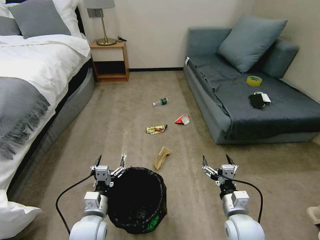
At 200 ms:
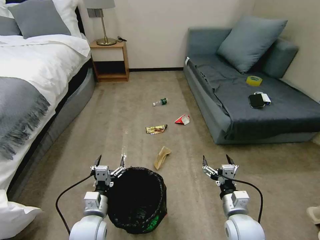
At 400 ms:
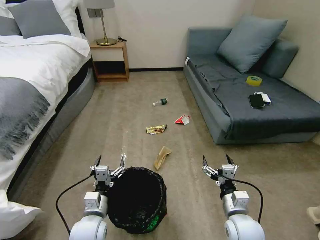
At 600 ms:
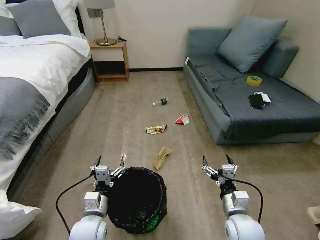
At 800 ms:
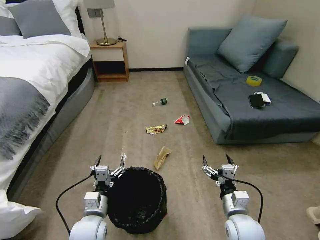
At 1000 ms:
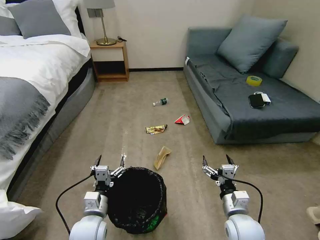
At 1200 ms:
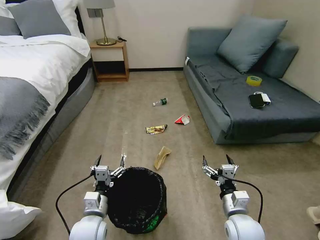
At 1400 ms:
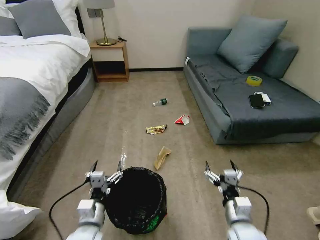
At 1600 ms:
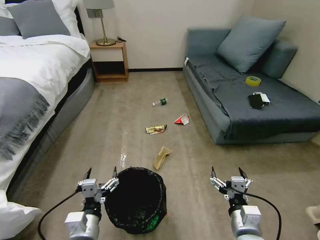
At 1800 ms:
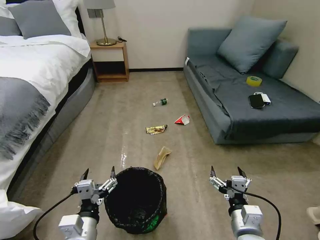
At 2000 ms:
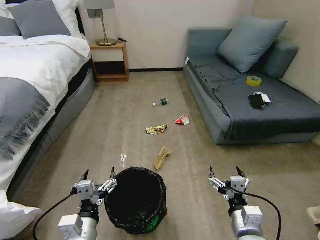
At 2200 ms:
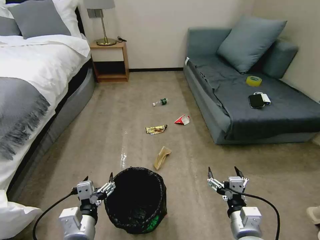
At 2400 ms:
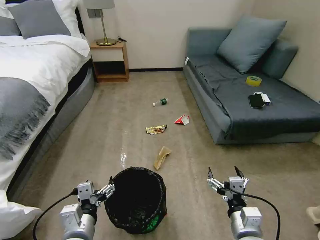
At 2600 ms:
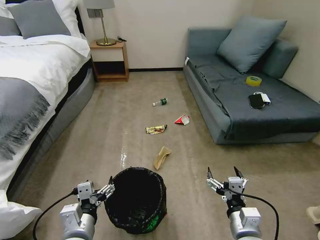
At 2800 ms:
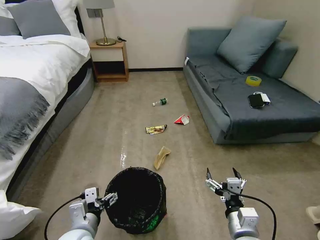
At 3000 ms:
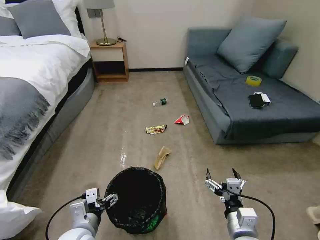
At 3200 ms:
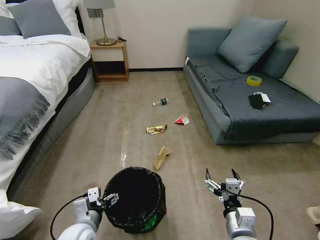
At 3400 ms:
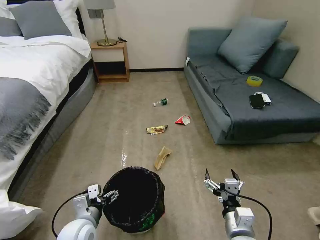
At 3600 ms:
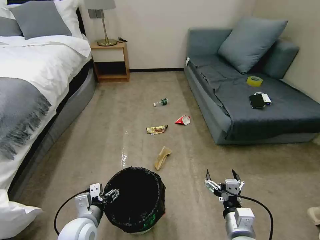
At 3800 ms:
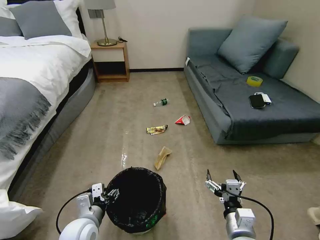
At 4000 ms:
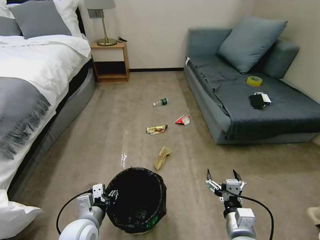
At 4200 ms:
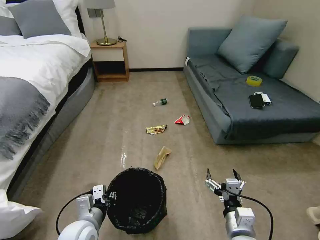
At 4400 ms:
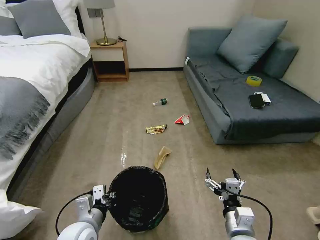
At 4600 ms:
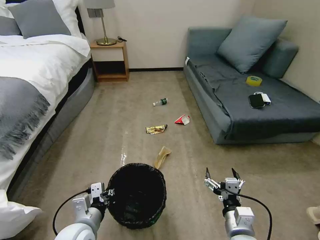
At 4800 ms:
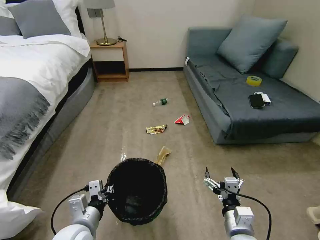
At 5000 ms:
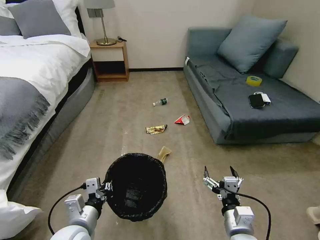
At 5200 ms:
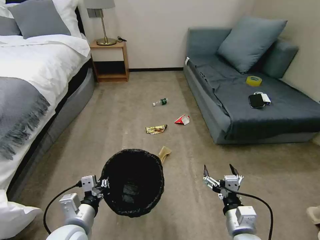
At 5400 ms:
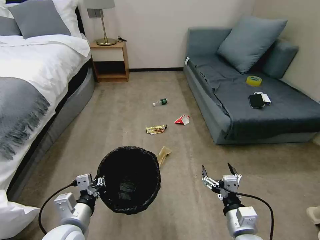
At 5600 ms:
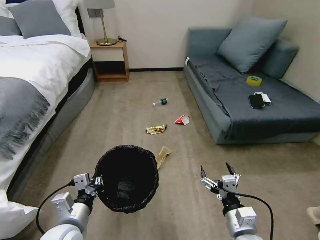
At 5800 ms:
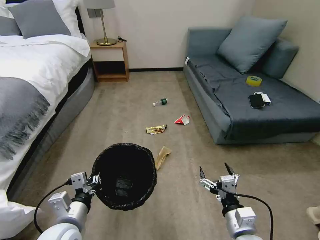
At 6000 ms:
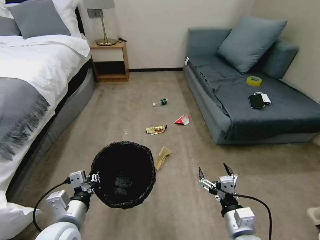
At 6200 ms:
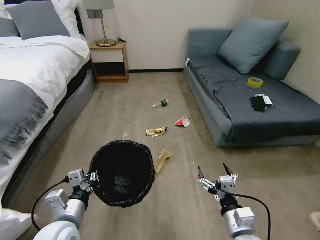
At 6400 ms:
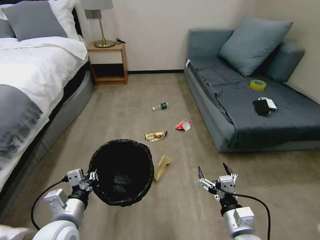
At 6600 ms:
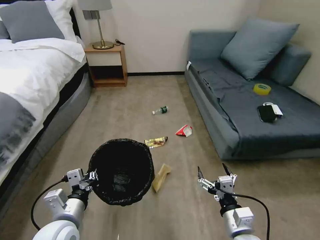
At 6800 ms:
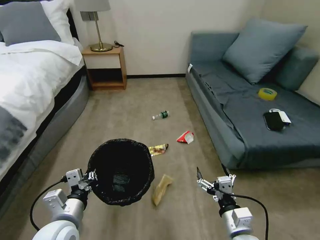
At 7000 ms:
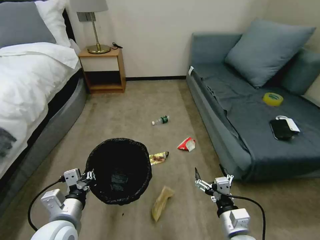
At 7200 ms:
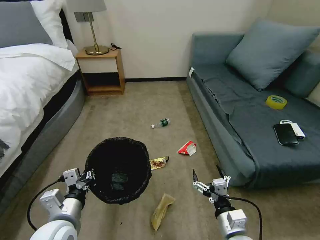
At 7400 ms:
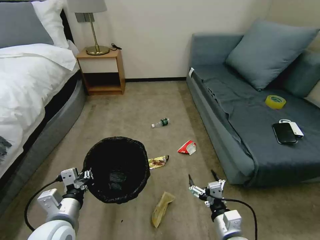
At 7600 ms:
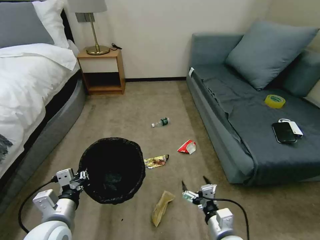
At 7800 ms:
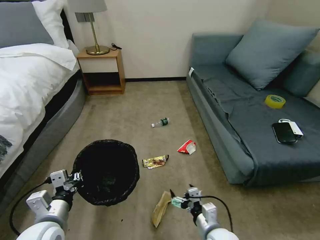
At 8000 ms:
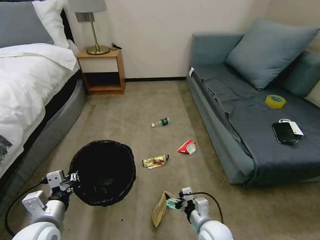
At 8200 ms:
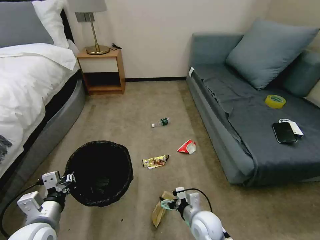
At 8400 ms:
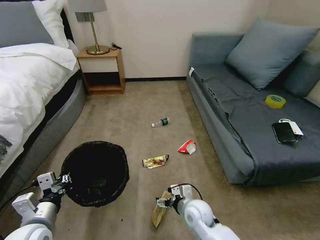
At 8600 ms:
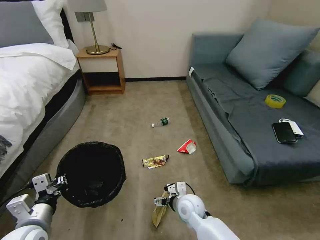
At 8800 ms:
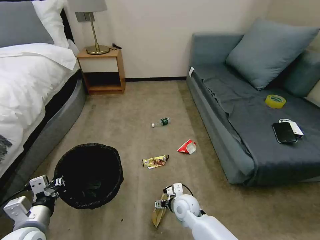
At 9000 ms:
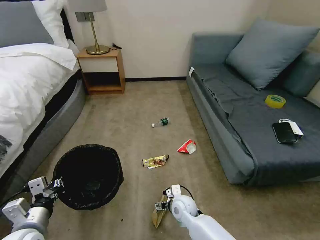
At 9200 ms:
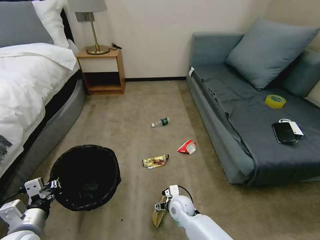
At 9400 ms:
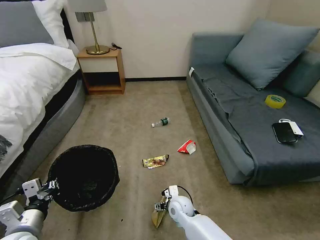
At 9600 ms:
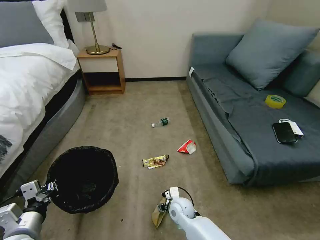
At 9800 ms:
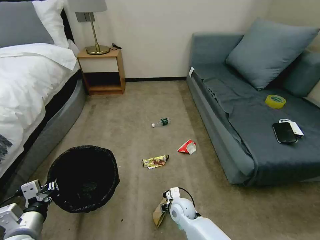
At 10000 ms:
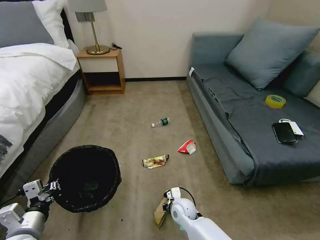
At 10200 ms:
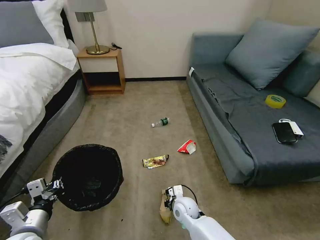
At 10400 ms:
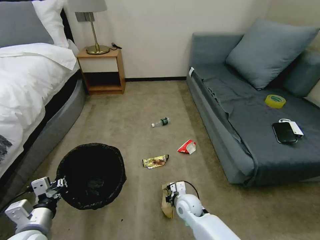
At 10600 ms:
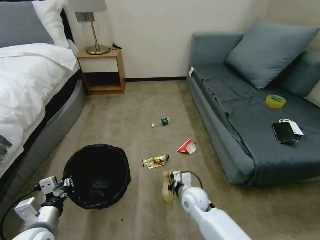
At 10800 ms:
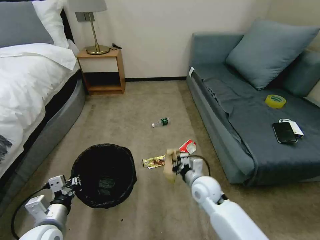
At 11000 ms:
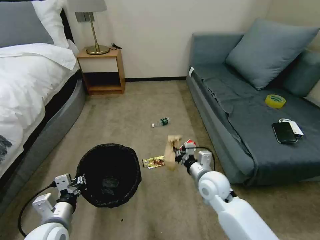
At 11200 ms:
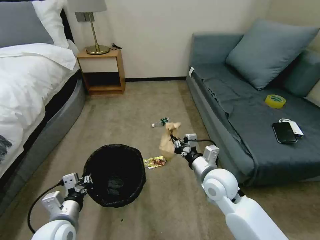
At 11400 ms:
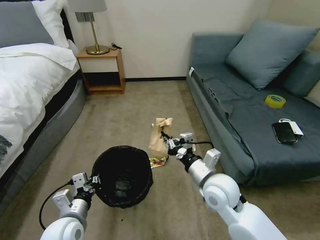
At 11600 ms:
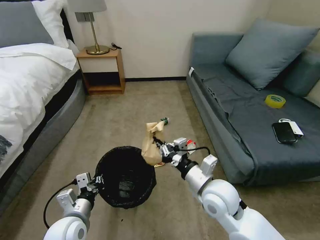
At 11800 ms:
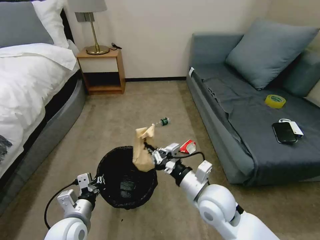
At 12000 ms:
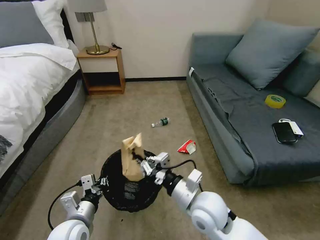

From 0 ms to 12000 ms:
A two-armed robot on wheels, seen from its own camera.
Task of the whole recording: Pick up the trash bin, then pick up the garbage on the floor and place it into the trash bin.
From 3000 ms to 4400 ms: The left gripper closes up.
From 4400 ms to 6000 ms: The left gripper ends up about 5 cm from where it was.
From 6000 ms to 7600 ms: The right gripper ends up about 5 cm from where it was.
From 7600 ms to 9000 ms: The left gripper is displaced to the left by approximately 5 cm, while the right gripper heads forward, to the left and downward, covering roughly 20 cm.
From 9000 ms to 10400 ms: The right gripper closes its fingers.
From 10400 ms to 12000 ms: The left gripper shifts about 10 cm to the right; the right gripper goes approximately 20 cm upward.

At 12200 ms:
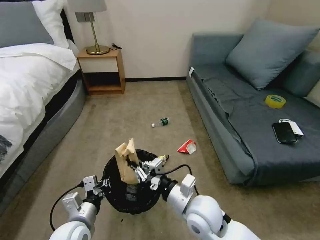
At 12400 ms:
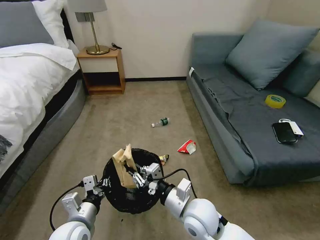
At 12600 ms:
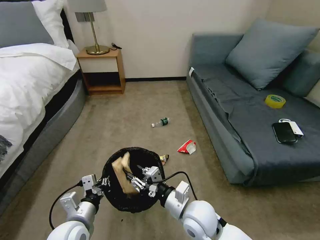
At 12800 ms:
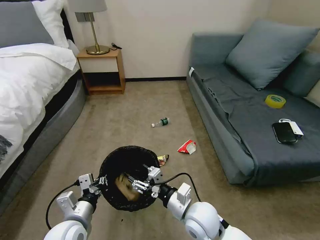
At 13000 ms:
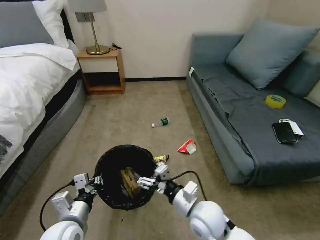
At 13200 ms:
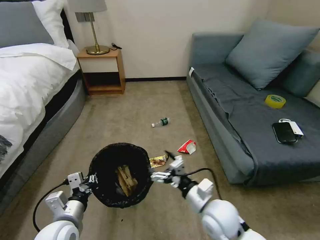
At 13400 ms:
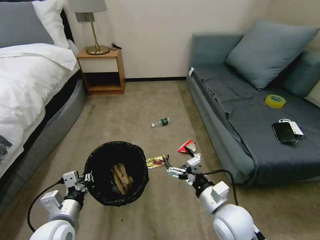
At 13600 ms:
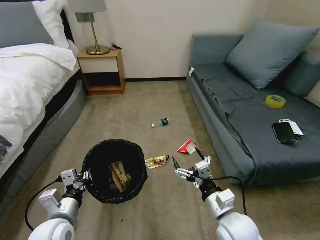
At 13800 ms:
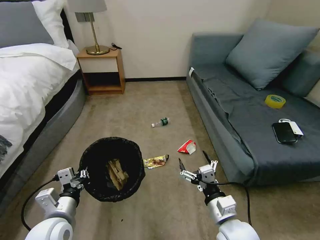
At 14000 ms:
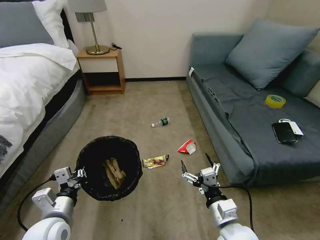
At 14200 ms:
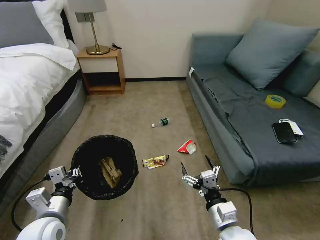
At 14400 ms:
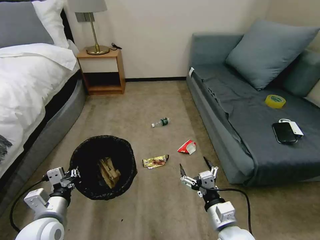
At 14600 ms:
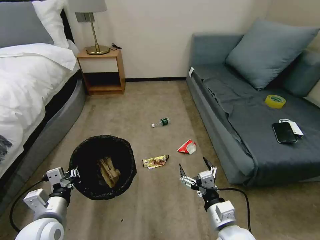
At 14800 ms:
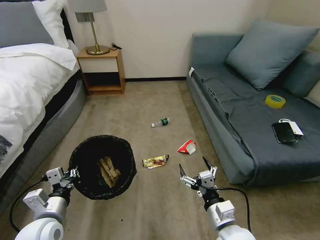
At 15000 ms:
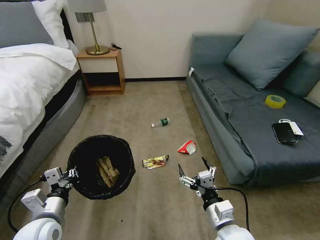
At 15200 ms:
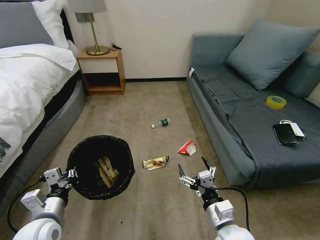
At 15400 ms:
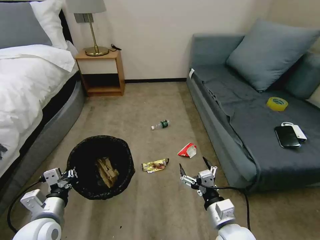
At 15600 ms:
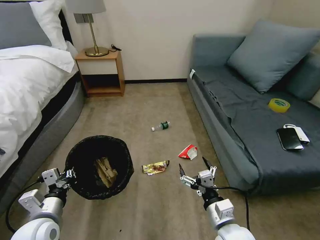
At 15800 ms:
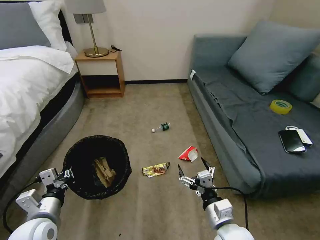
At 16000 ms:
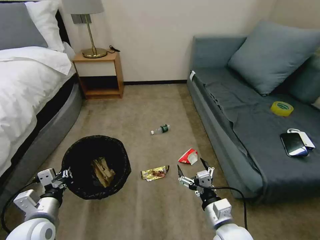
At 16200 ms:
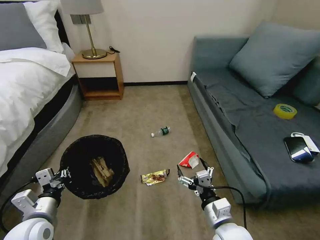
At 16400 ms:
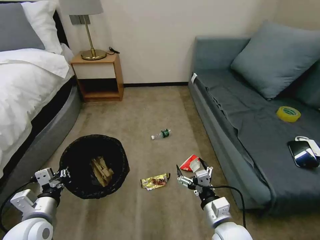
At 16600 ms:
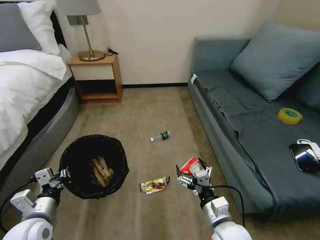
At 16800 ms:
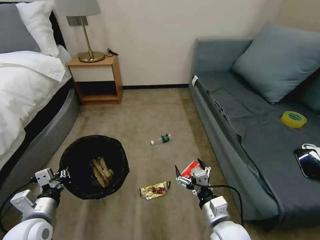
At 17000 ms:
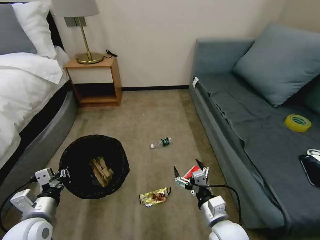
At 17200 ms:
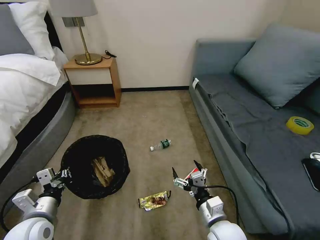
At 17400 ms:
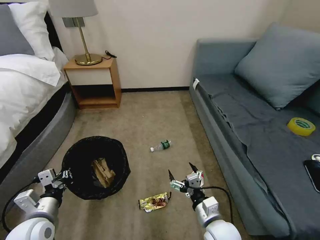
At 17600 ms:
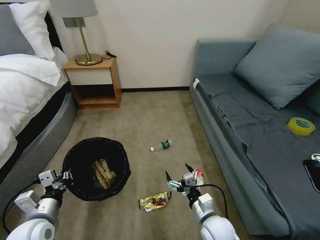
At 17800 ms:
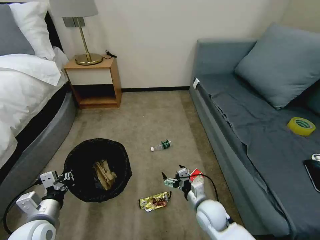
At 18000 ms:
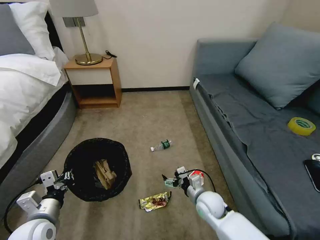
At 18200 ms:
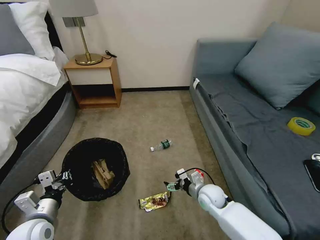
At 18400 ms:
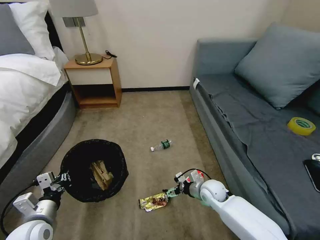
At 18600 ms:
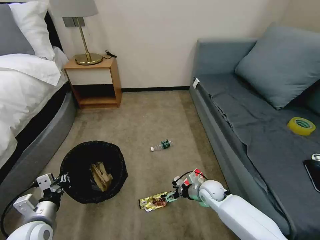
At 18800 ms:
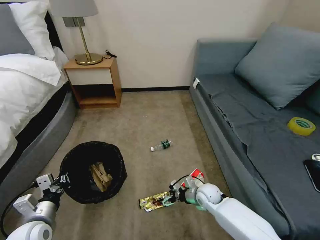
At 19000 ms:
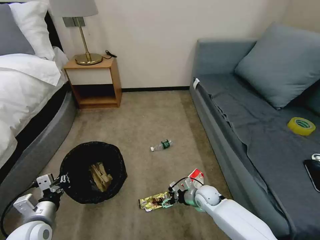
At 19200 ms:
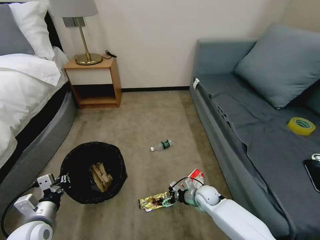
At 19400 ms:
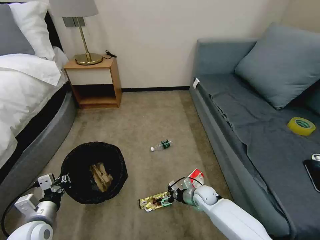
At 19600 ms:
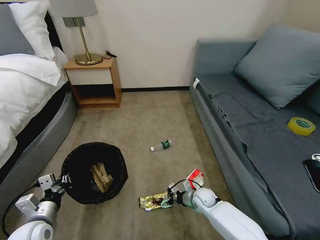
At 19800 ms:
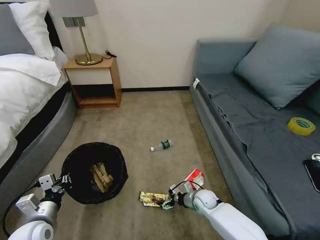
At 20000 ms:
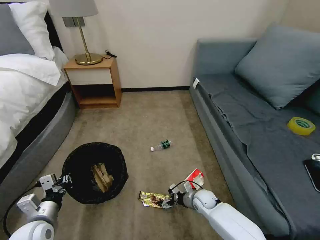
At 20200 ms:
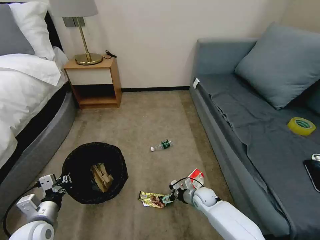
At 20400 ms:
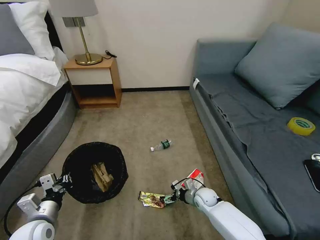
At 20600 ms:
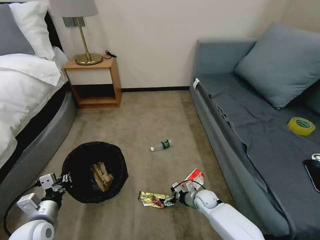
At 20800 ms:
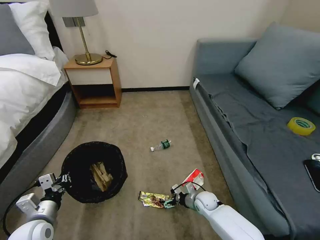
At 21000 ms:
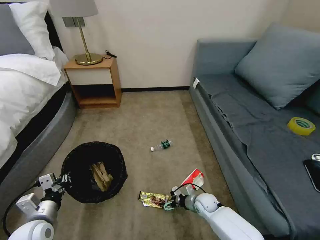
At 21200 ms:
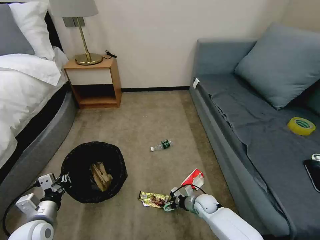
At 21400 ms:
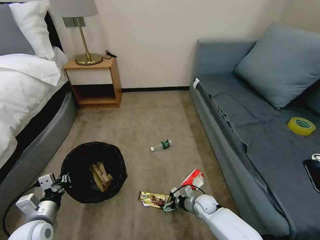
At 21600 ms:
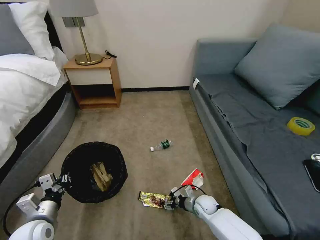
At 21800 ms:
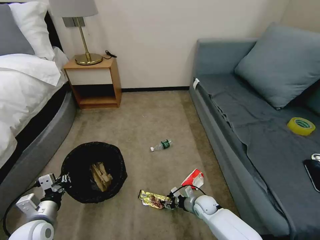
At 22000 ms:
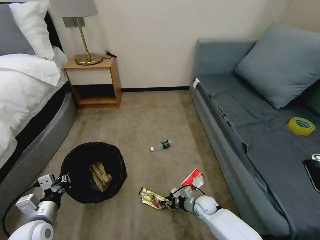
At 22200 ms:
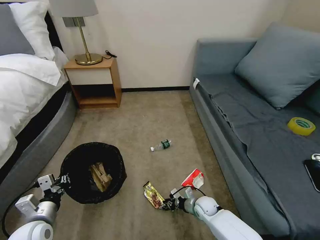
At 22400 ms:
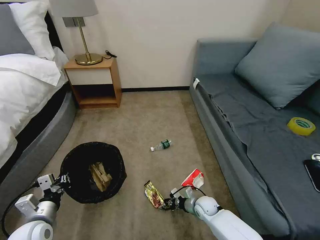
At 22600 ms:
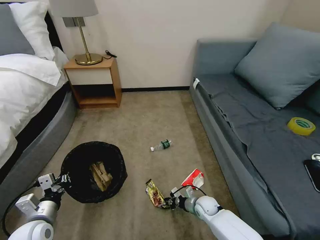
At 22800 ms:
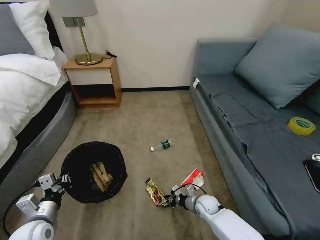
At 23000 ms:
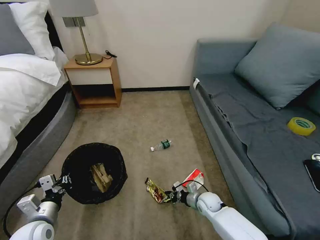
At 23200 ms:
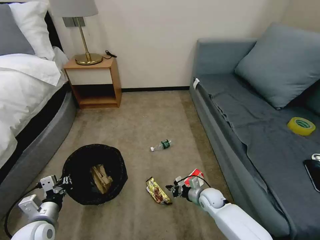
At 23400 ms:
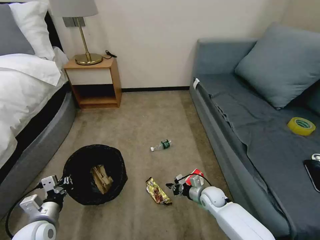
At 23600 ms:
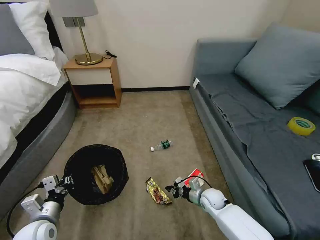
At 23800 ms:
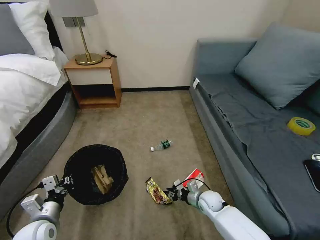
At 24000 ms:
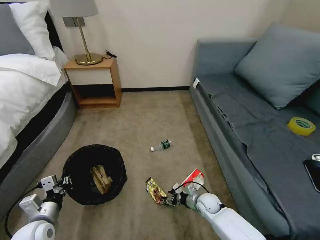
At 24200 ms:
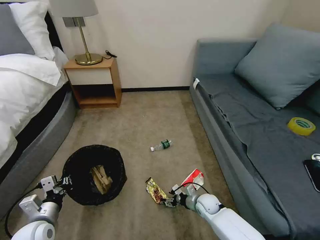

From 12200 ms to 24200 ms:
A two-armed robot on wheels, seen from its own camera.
Task of the whole recording: Pick up the trash bin, then pick up the garbage on the floor and place it into the trash bin.
From 12200 ms to 13800 ms: The left gripper ends up about 5 cm from where it was, while the right gripper is displaced to the right and backward by approximately 10 cm, and opens.
From 13800 ms to 15200 ms: There are only small adjustments of the grippers.
From 16600 ms to 18200 ms: The right gripper heads forward and downward, covering about 20 cm.
From 18200 ms to 19800 ms: The right gripper moves downward, roughly 10 cm.
From 19800 ms to 21200 ms: The grippers stay close to where they were, moving slightly.
From 21200 ms to 22600 ms: The right gripper closes up.
From 22600 ms to 24200 ms: The right gripper opens.
